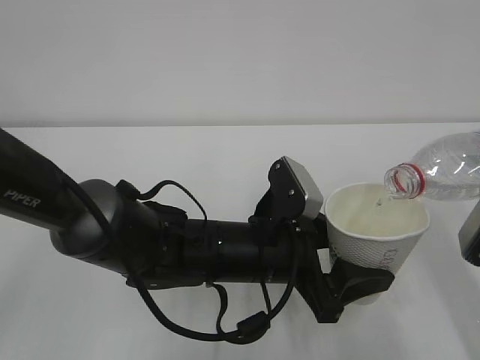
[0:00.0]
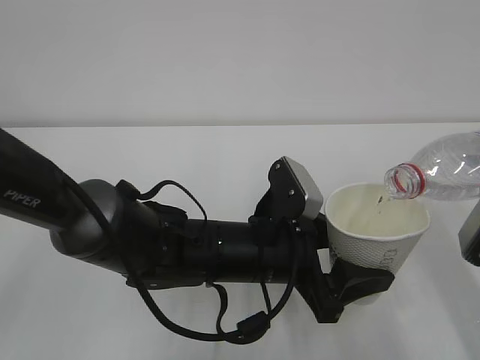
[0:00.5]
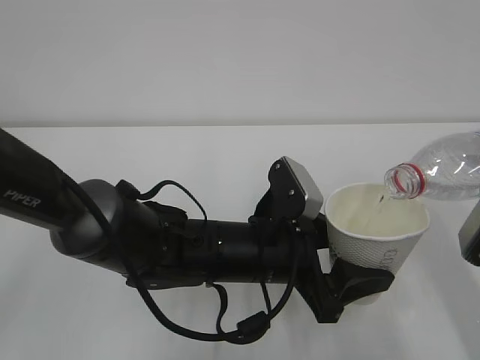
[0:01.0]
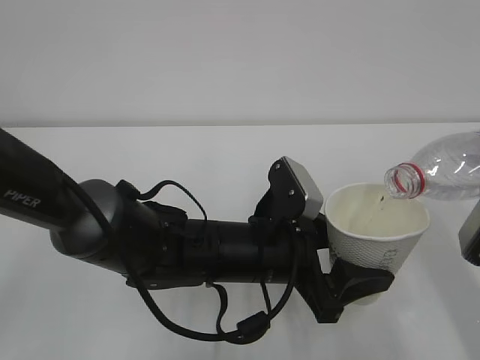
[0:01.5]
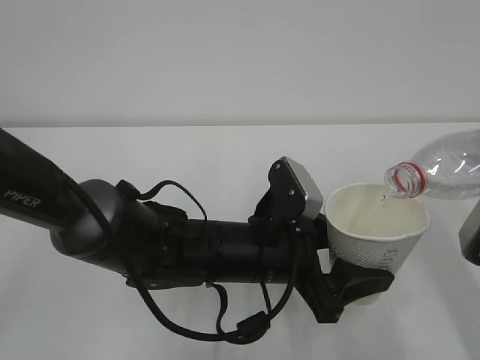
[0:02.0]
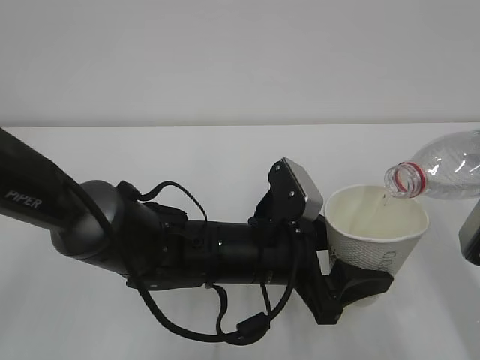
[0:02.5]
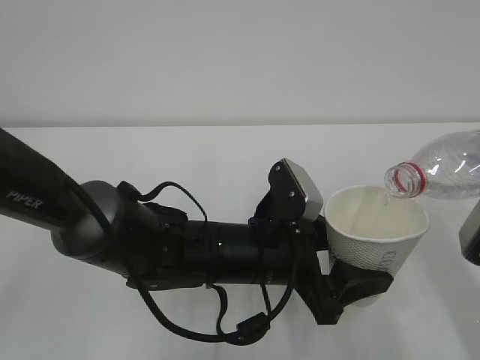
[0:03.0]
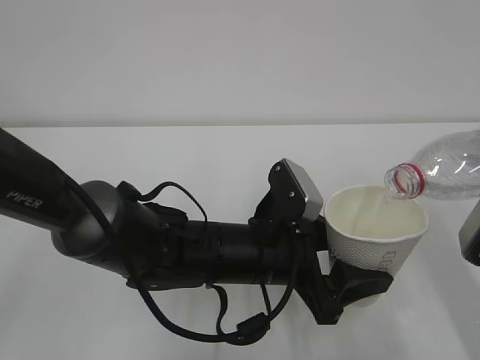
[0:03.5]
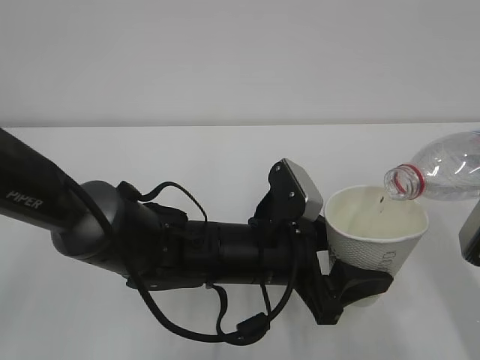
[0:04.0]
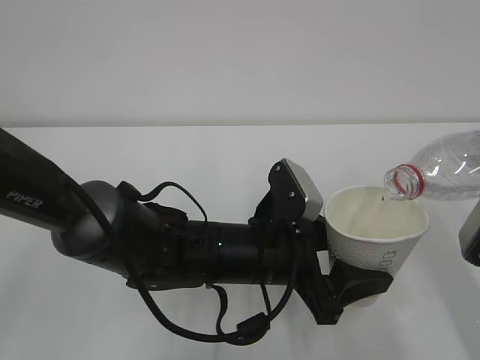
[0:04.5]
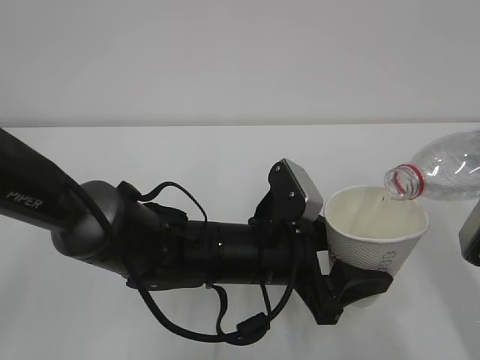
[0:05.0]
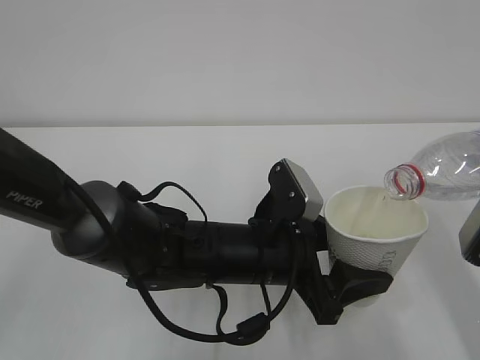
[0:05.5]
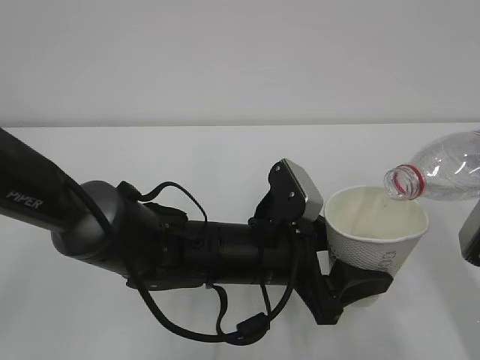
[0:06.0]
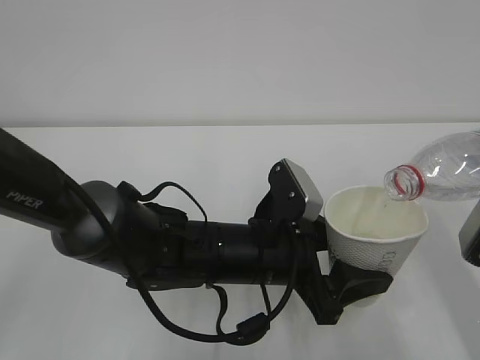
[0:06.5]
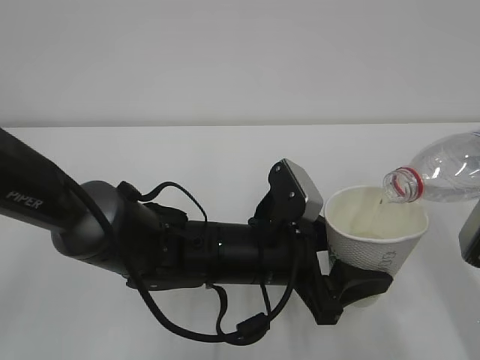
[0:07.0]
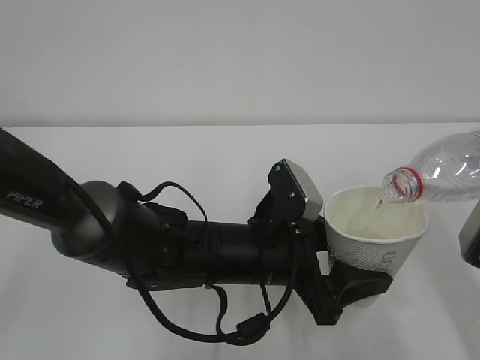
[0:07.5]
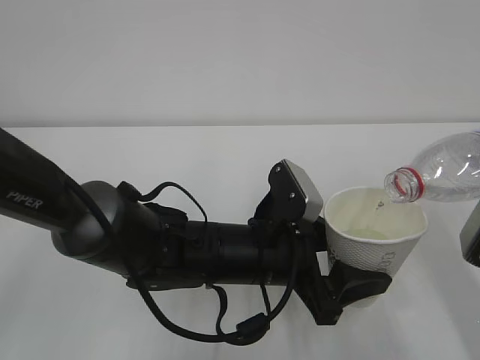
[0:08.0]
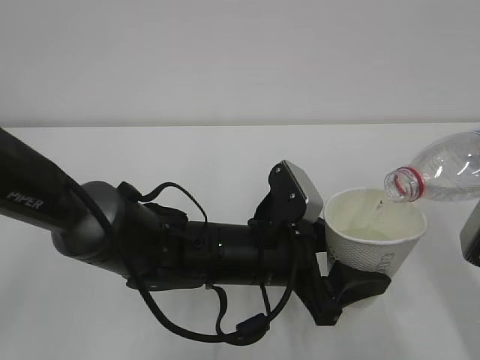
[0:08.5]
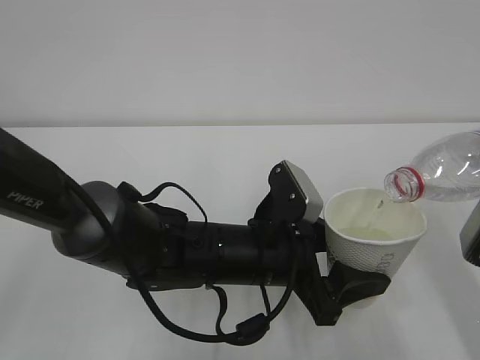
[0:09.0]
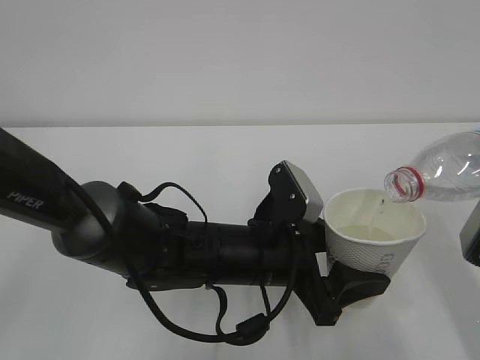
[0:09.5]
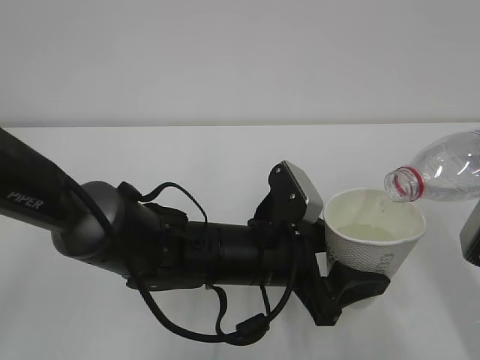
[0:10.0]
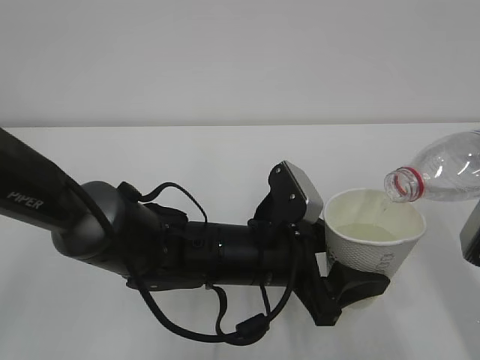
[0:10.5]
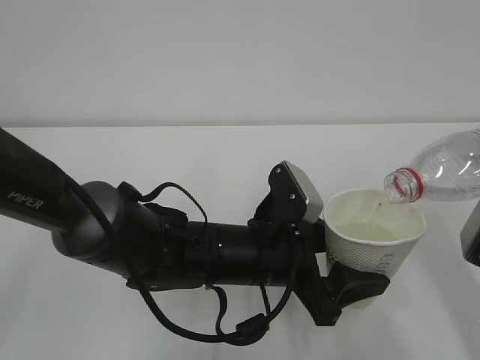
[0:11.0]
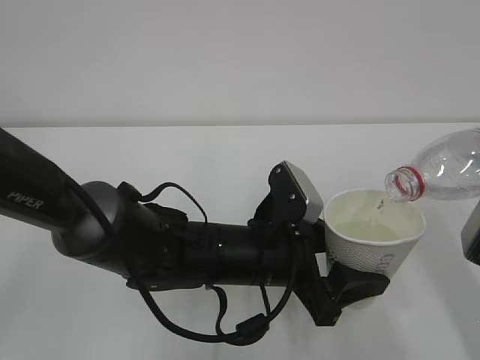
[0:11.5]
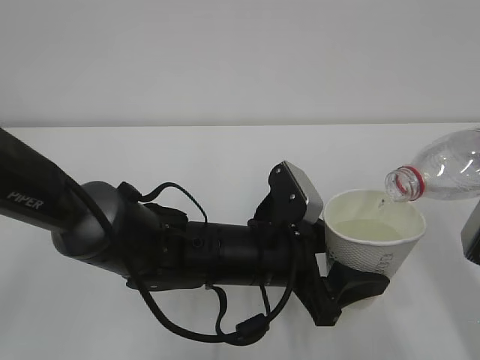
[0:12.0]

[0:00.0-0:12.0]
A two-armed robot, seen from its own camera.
0:00.0 to 0:10.0: Neither gripper changes place.
0:10.0 to 0:12.0: Both grippers stay put.

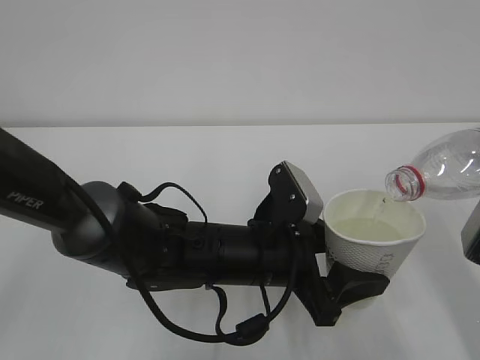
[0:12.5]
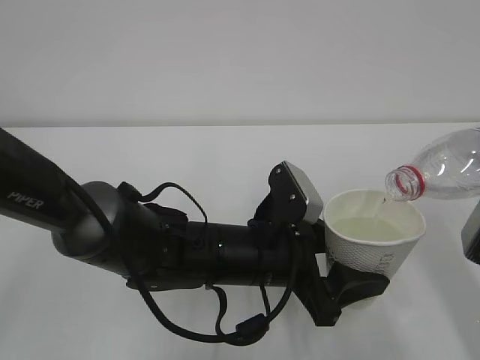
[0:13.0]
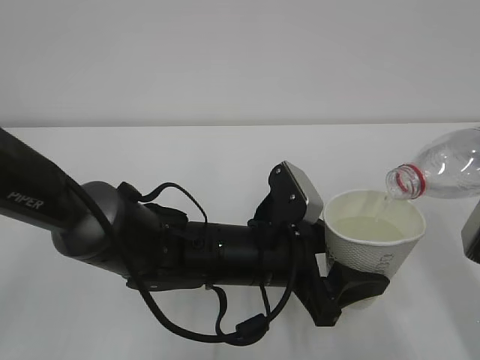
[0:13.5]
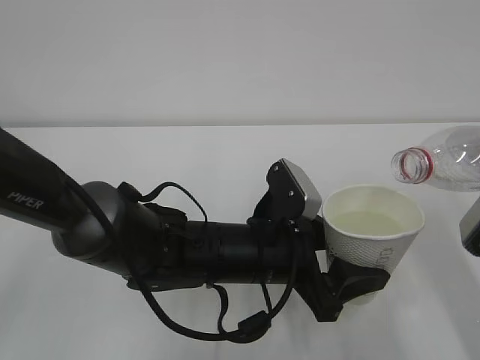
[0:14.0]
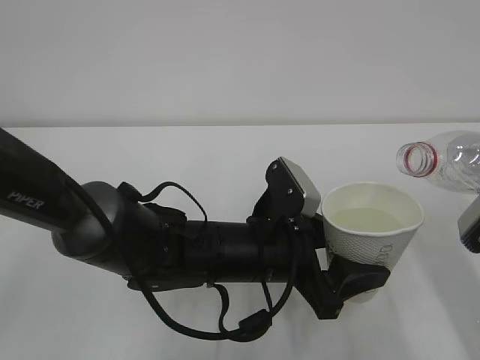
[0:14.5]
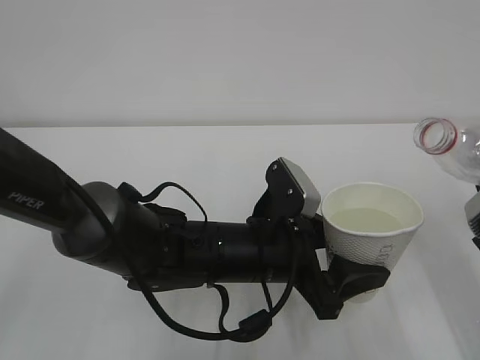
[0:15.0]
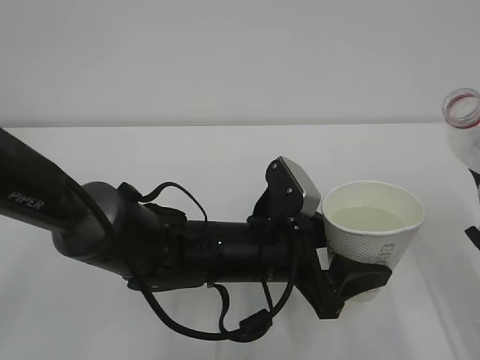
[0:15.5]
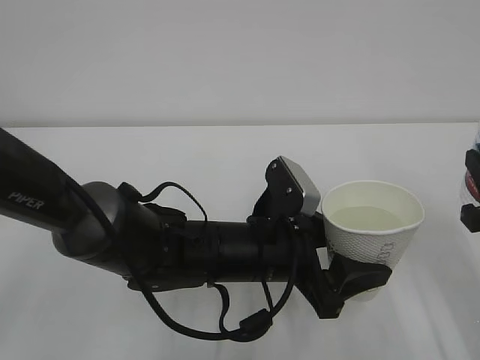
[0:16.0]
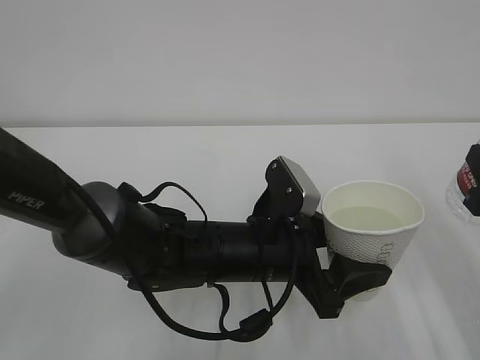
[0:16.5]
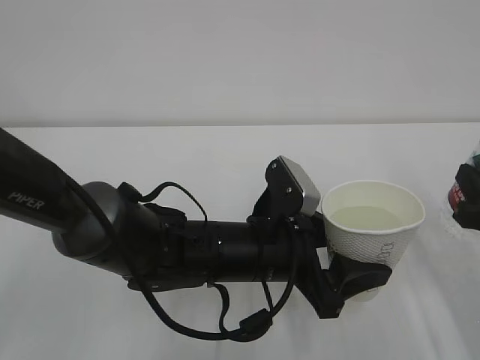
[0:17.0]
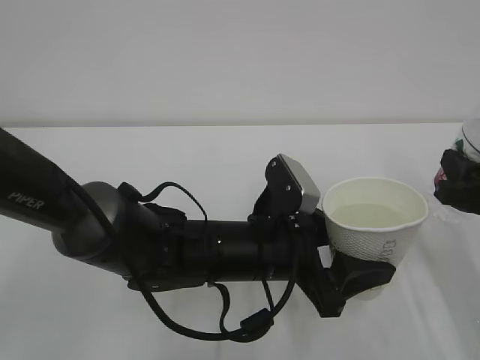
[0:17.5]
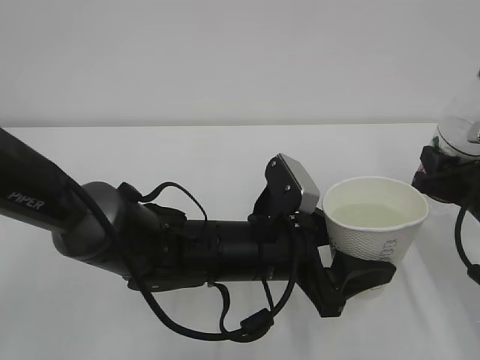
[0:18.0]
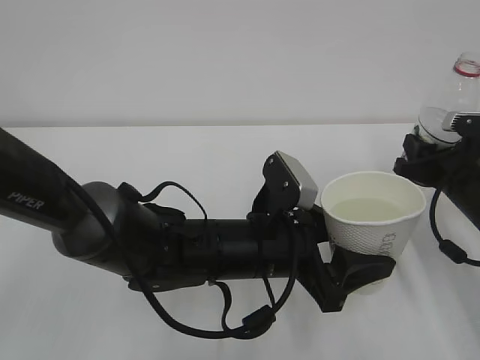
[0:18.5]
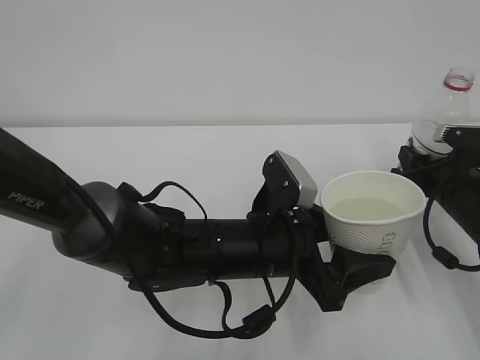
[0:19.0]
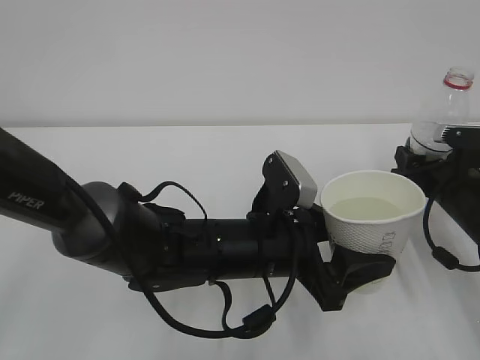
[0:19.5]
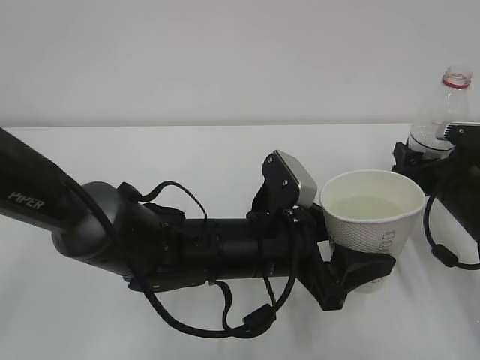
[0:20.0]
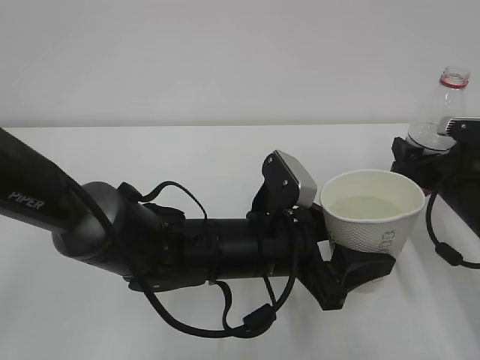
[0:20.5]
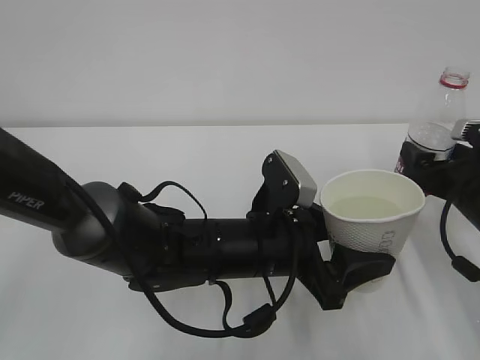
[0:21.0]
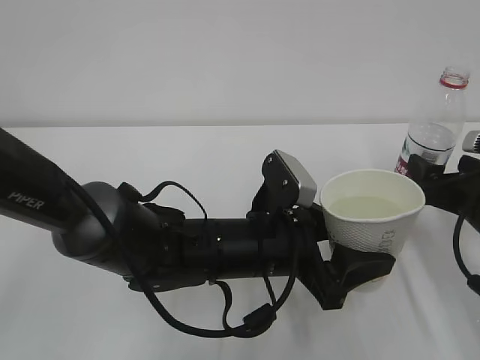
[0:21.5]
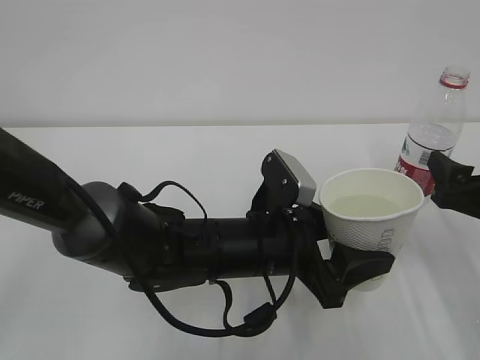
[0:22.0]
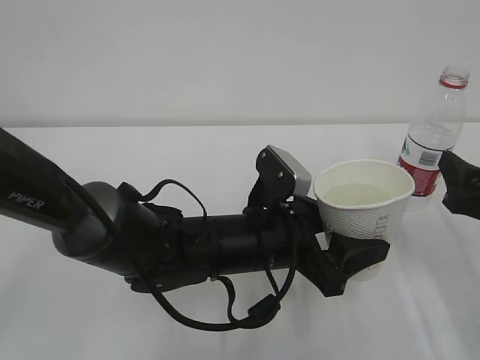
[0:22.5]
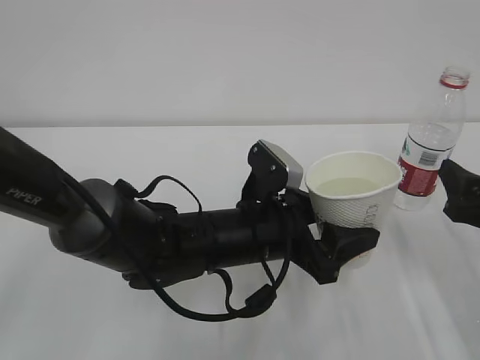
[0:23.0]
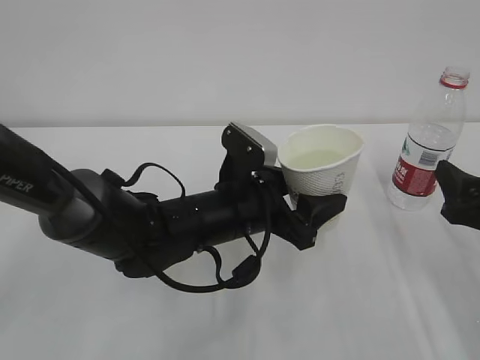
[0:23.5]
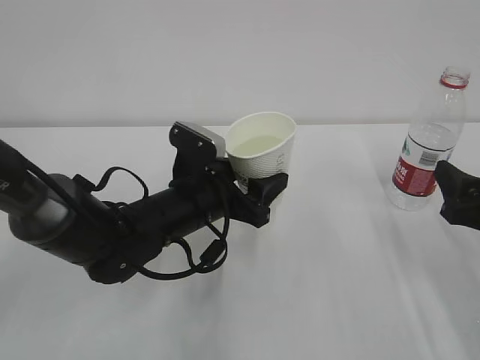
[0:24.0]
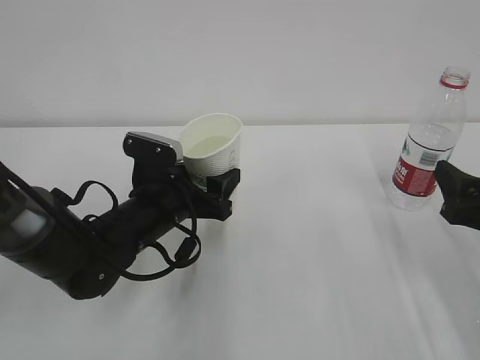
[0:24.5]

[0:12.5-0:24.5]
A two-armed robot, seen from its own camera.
0:12.5 to 0:14.5: The grippers move only a little.
0:16.5 to 0:18.5: The right gripper travels forward and downward by approximately 15 cm.
0:18.5 to 0:20.5: The right gripper opens its fingers.
0:20.5 to 0:22.5: The right gripper is displaced backward by about 10 cm.
0:22.5 to 0:24.5: The left gripper moves to the left and forward, roughly 15 cm.

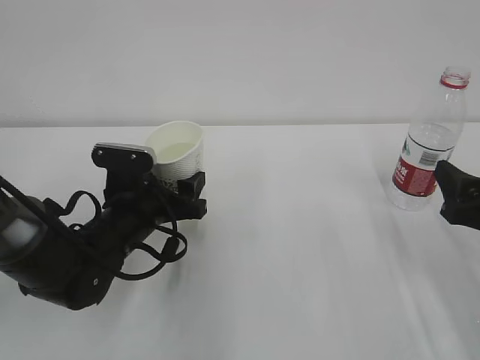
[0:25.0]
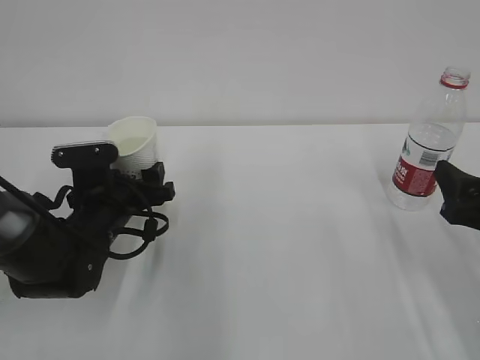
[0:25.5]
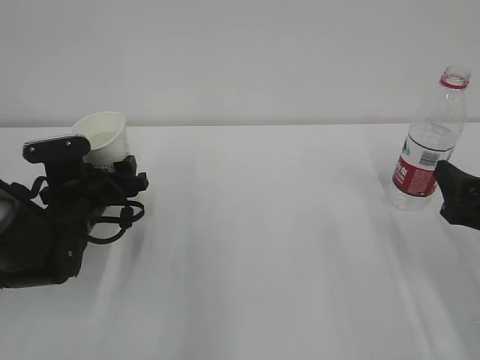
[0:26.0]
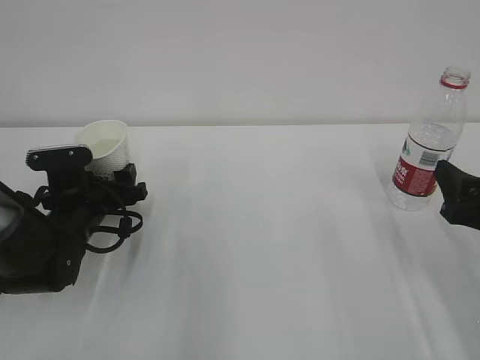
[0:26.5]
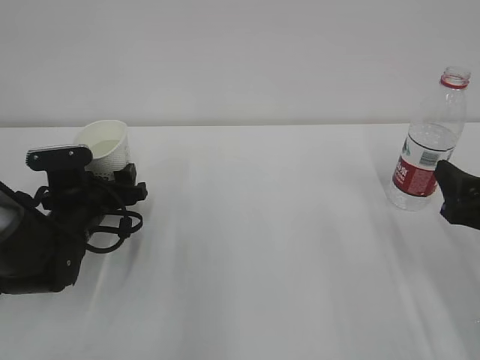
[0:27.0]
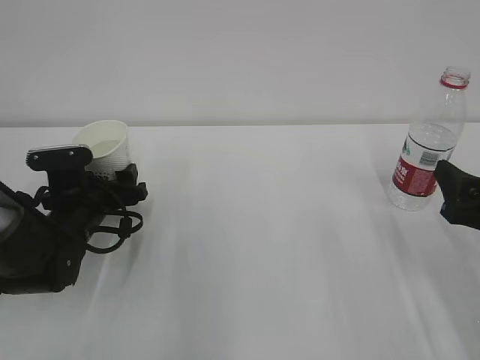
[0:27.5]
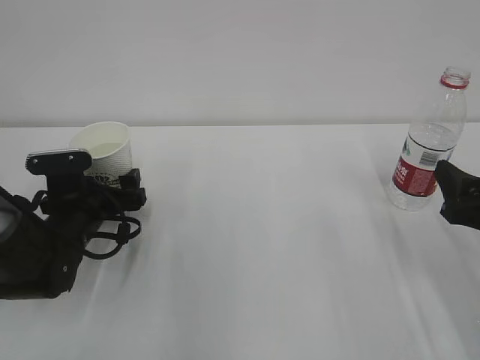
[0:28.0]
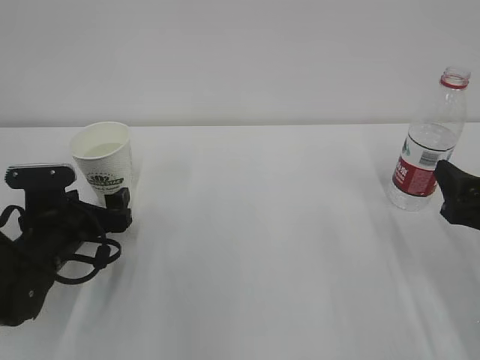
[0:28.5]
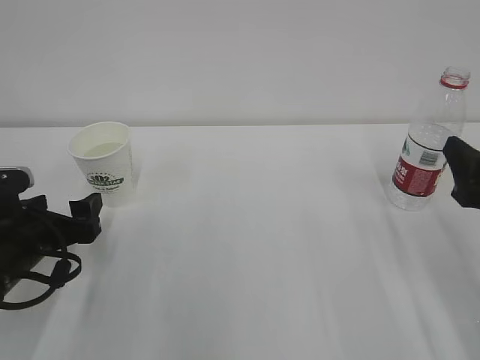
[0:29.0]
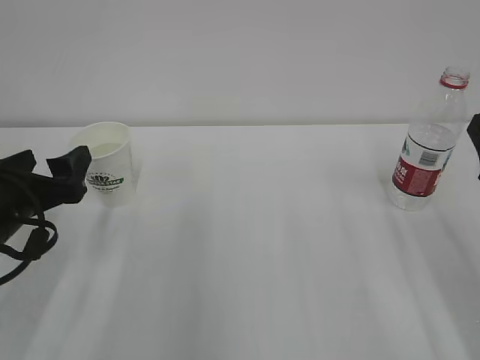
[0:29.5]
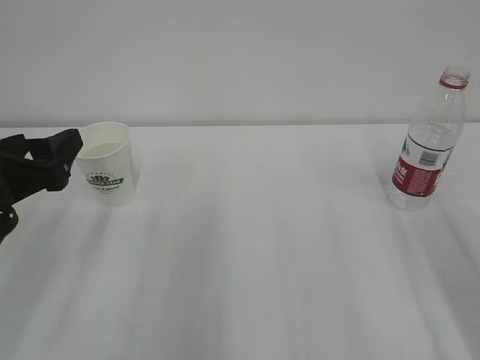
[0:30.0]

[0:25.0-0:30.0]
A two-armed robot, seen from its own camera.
0:25.0 to 0:27.5: The left gripper goes some 5 cm to the left.
0:27.5 to 0:30.0: The right gripper heads upward, covering some 10 cm; the left gripper is displaced upward and backward by some 15 cm, and opens, then closes once more.
